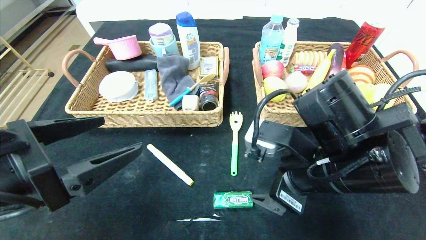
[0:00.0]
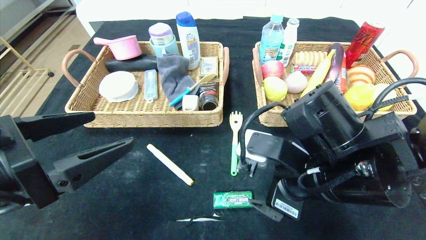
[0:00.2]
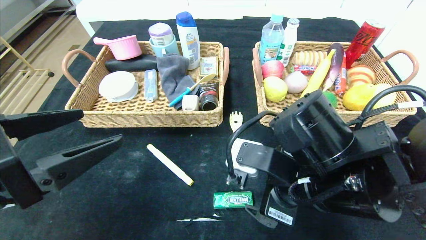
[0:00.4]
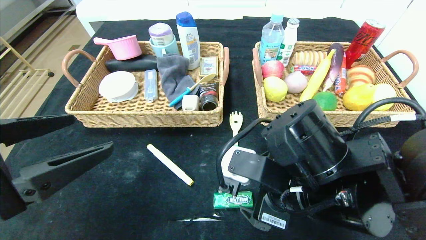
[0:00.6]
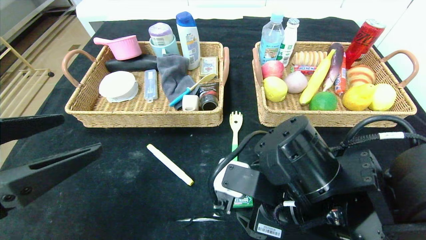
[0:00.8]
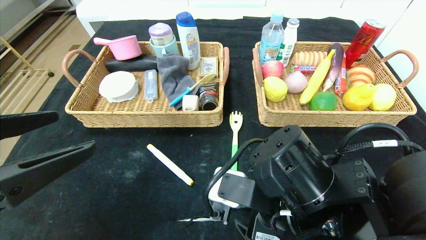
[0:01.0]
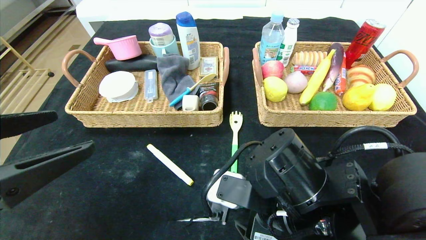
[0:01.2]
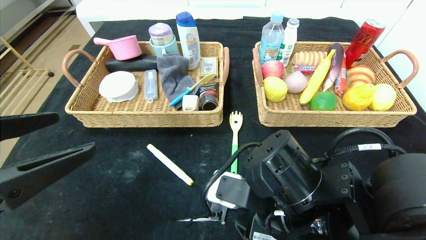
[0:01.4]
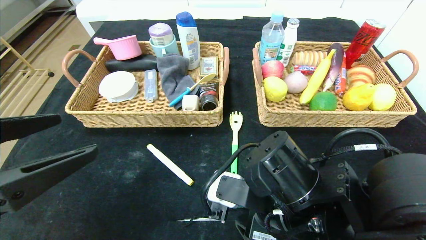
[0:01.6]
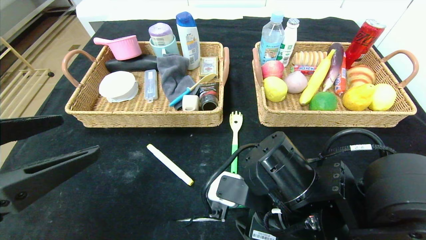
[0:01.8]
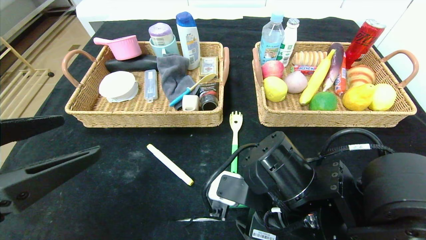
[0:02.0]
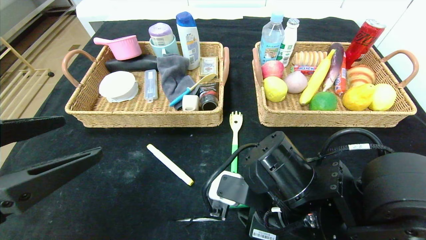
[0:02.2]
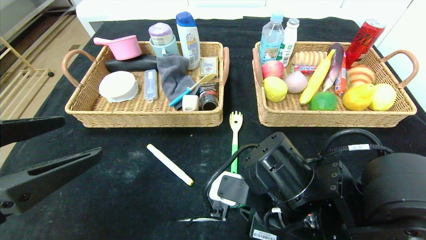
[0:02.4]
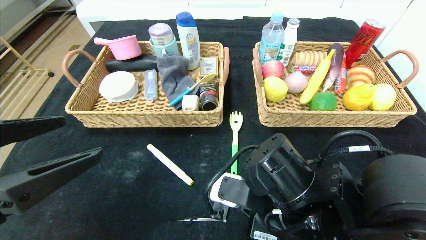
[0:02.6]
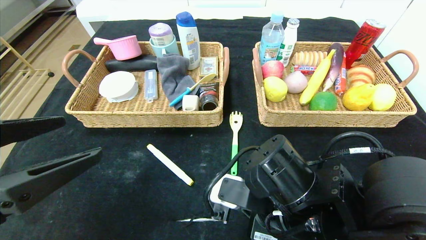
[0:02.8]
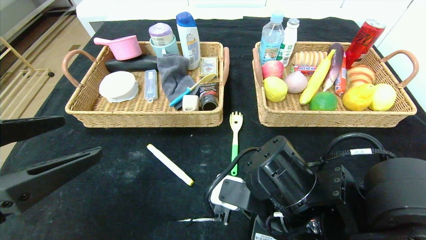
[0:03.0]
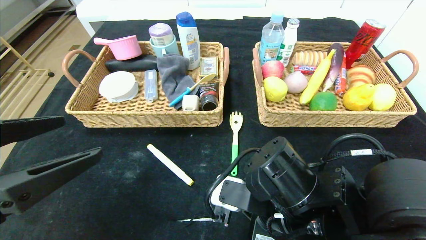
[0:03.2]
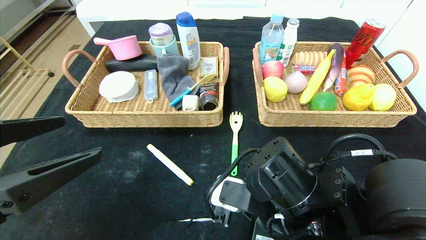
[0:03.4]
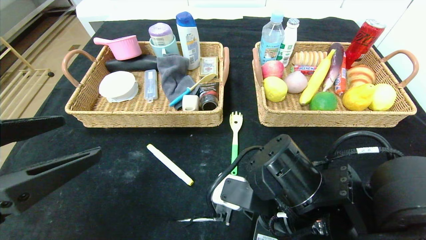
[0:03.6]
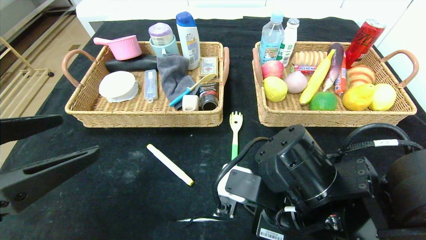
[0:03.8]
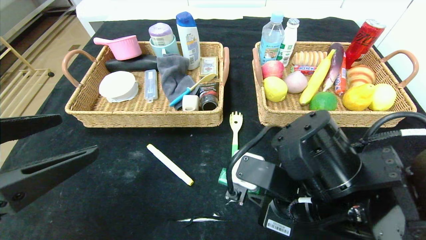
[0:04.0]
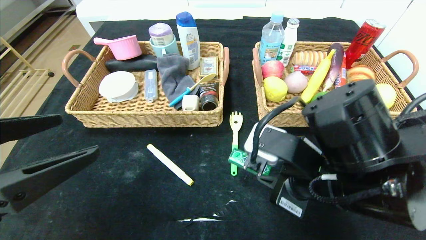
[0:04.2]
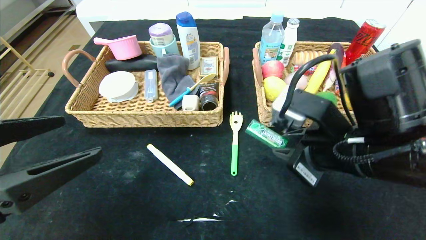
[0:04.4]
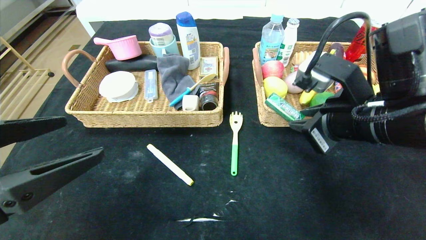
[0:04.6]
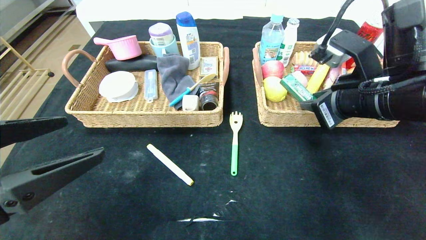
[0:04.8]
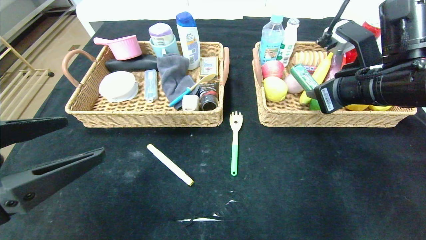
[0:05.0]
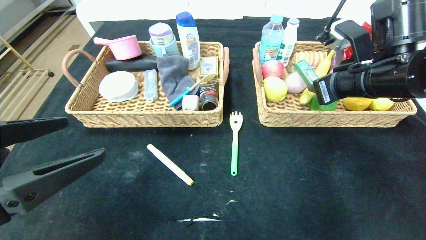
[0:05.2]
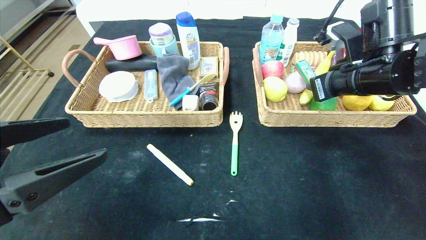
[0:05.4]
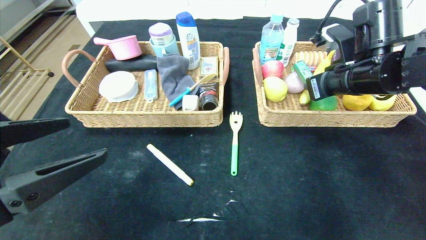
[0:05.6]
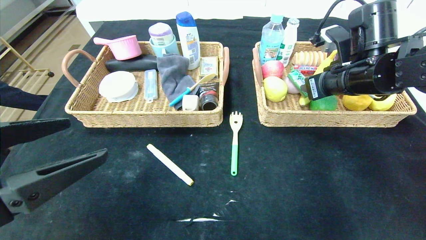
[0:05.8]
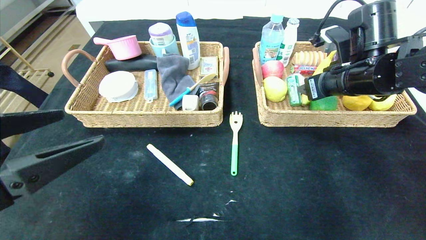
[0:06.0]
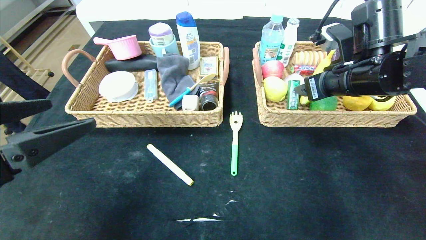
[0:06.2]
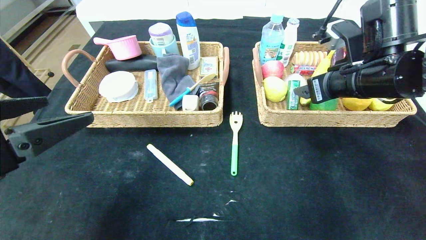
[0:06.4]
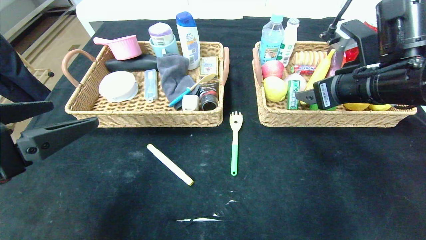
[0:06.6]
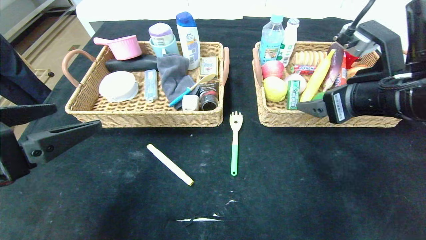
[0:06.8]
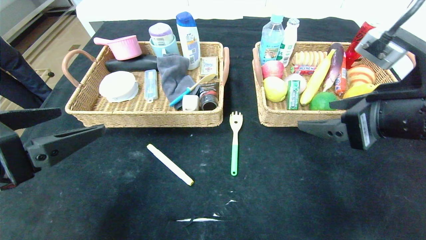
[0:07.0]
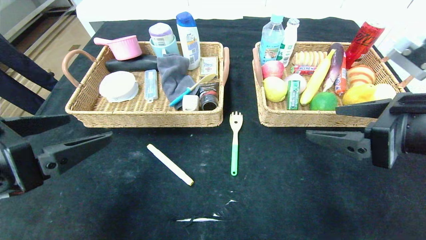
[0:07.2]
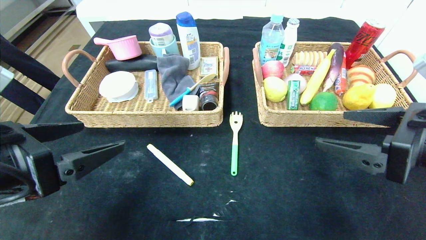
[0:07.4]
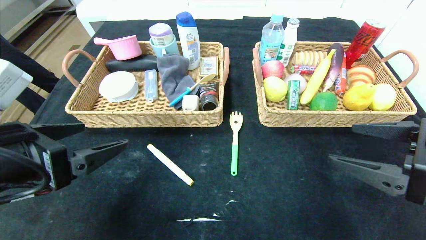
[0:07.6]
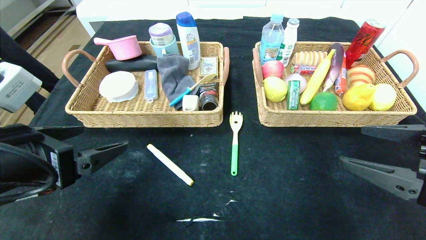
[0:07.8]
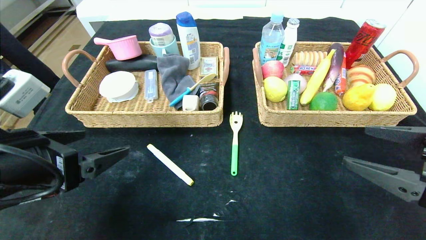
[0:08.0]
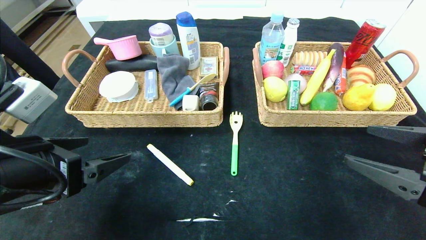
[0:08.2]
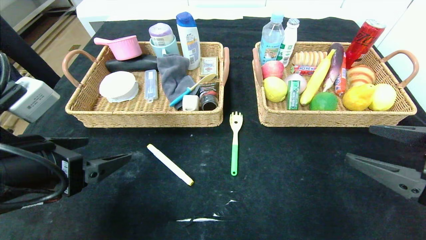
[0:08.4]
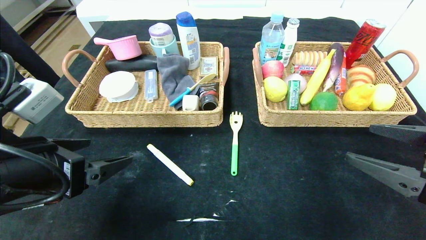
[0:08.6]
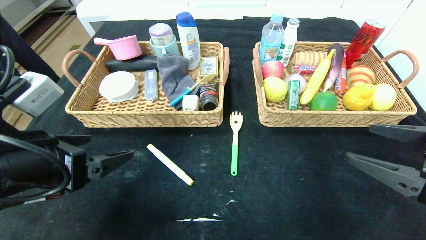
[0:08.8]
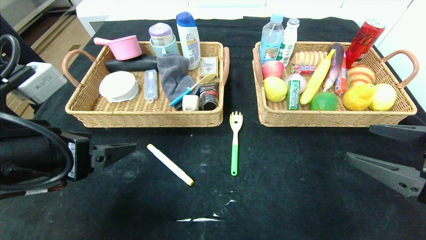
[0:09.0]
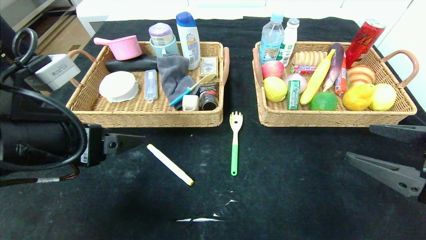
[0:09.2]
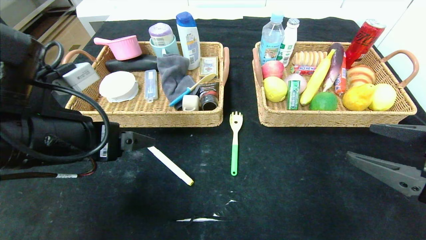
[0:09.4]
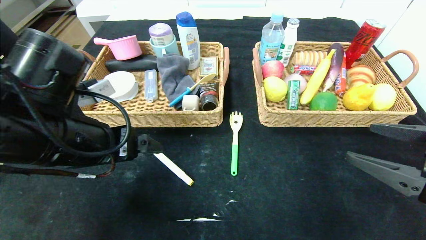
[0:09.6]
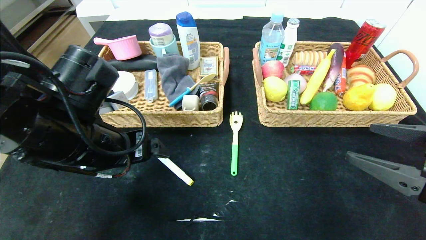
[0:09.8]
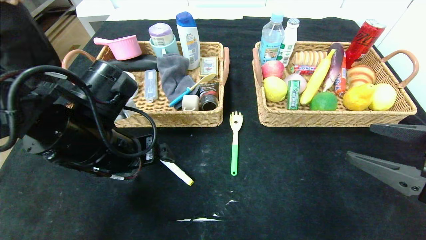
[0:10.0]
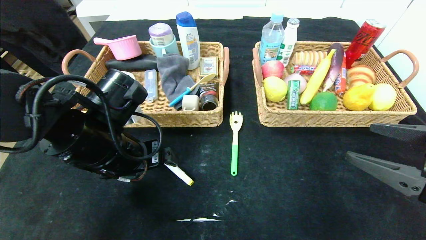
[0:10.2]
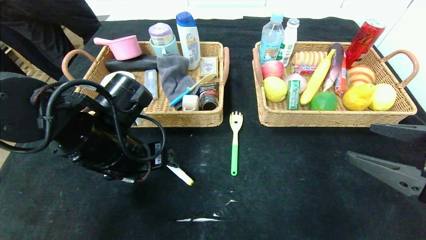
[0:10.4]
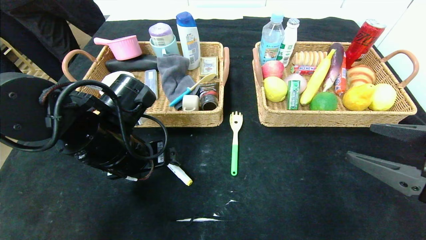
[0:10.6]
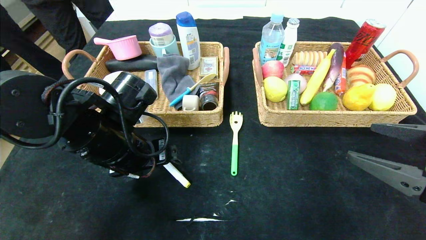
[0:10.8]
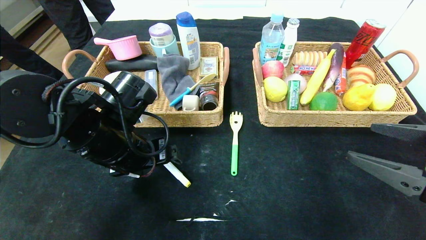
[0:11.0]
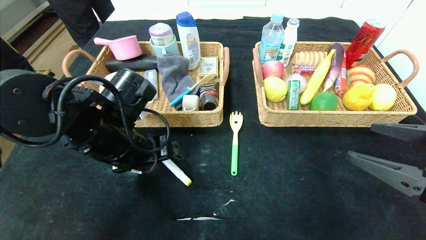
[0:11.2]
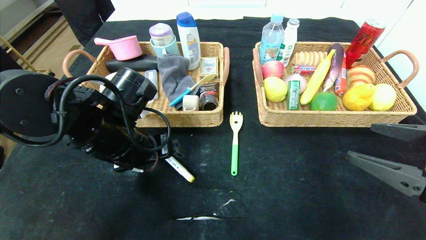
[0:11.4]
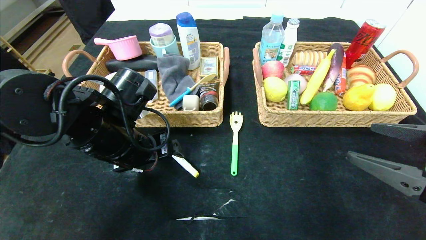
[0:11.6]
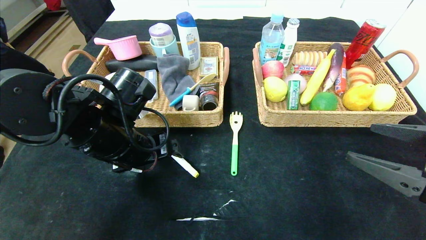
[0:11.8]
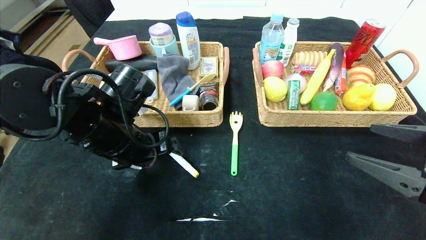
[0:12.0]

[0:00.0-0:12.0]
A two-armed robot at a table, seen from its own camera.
Step, 0:00.0 to 0:07.6: Pick up the green chewing gum and put it in the right basket.
0:00.0 to 0:01.6: The right gripper is displaced downward by roughly 5 cm.
0:01.6 to 0:03.0: The right gripper closes.
0:03.0 to 0:04.4: The right gripper shifts about 10 cm upward and to the right.
0:04.4 to 0:06.0: The right gripper moves forward and to the right, about 15 cm, and opens.
0:06.0 to 0:07.6: The right gripper shifts approximately 20 cm backward.
0:07.6 to 0:09.0: There are only small adjustments of the grippers.
0:09.0 to 0:10.4: The left gripper is displaced forward, to the right and downward by approximately 10 cm.
0:10.4 to 0:12.0: There are only small adjustments of the grippers.

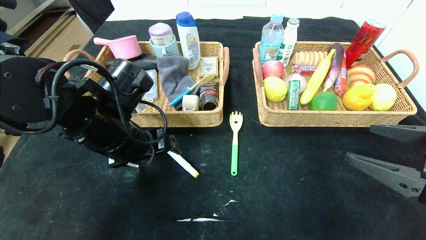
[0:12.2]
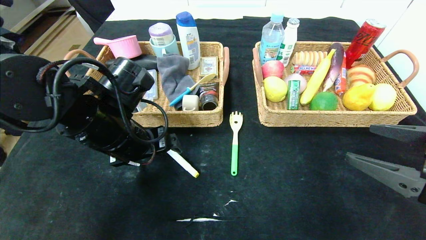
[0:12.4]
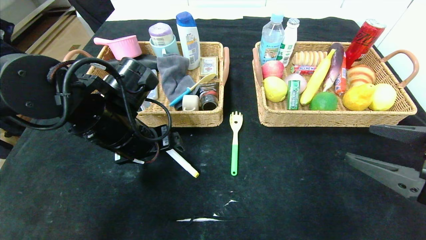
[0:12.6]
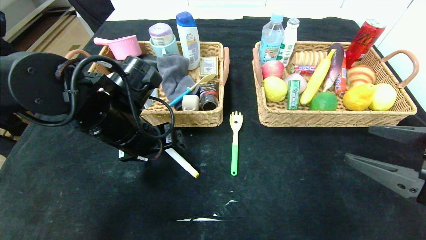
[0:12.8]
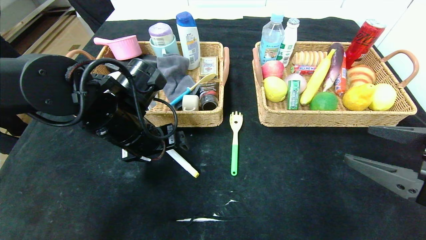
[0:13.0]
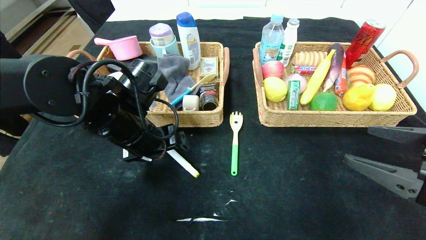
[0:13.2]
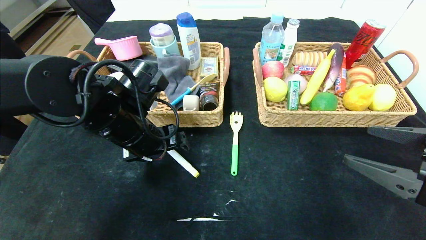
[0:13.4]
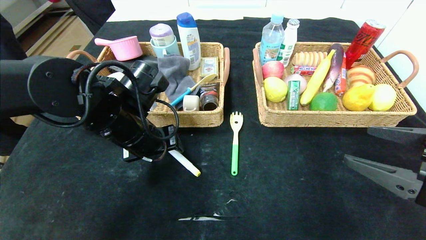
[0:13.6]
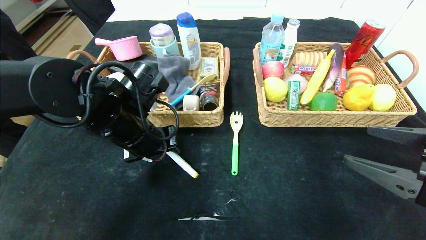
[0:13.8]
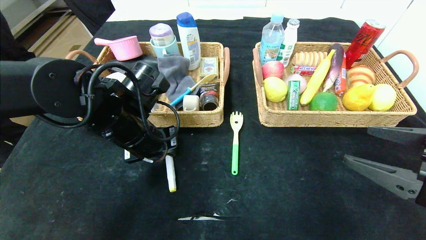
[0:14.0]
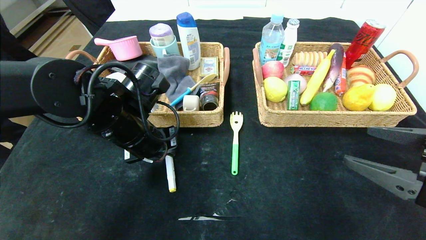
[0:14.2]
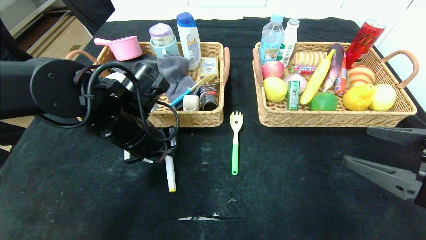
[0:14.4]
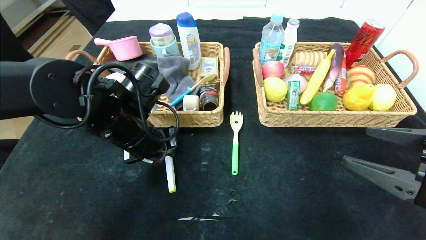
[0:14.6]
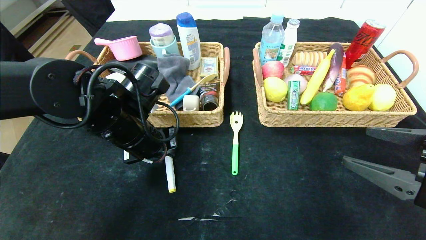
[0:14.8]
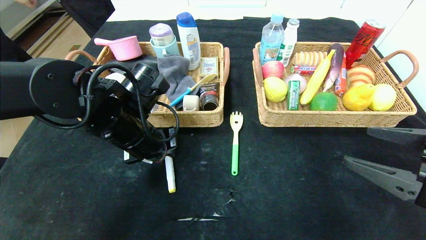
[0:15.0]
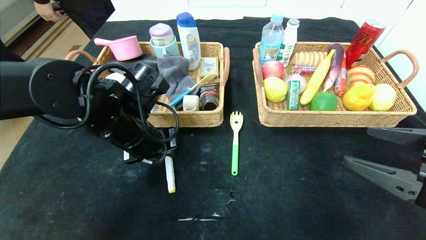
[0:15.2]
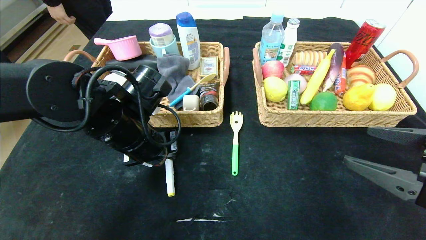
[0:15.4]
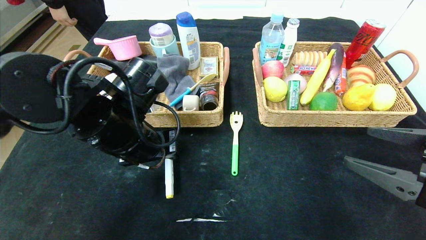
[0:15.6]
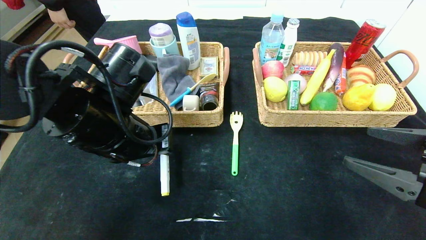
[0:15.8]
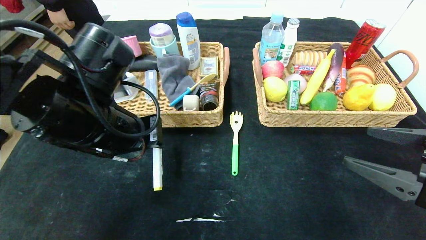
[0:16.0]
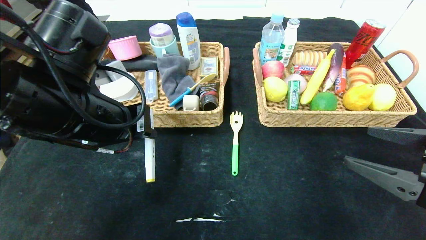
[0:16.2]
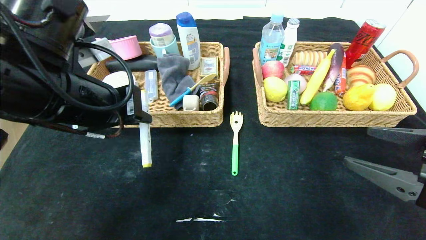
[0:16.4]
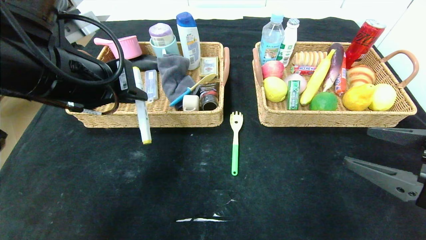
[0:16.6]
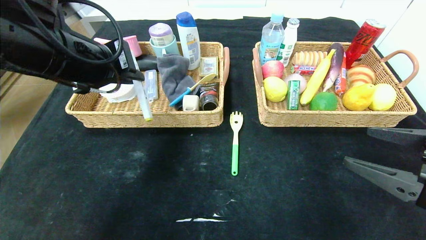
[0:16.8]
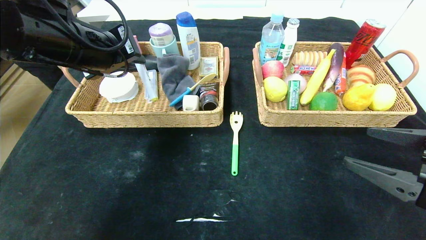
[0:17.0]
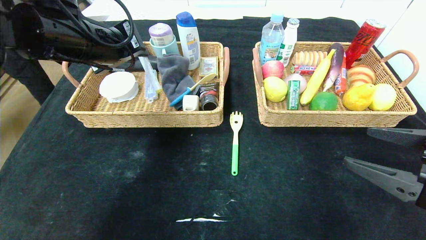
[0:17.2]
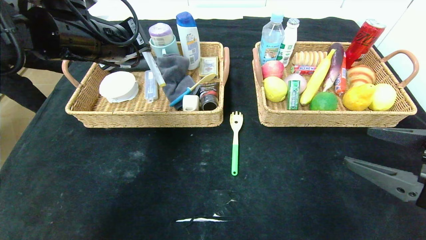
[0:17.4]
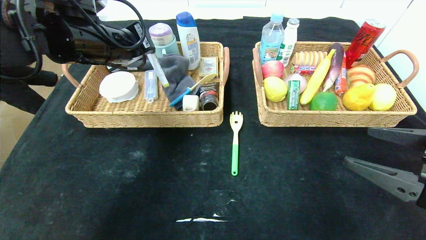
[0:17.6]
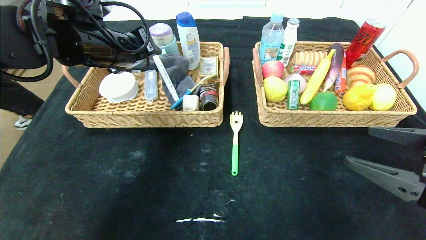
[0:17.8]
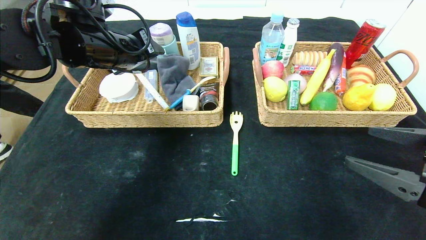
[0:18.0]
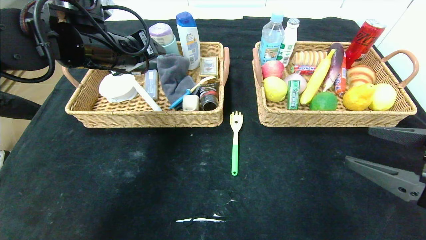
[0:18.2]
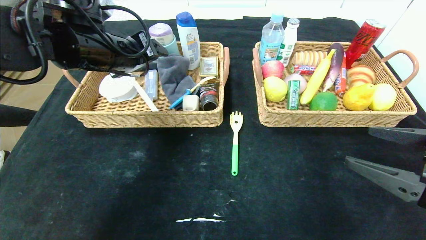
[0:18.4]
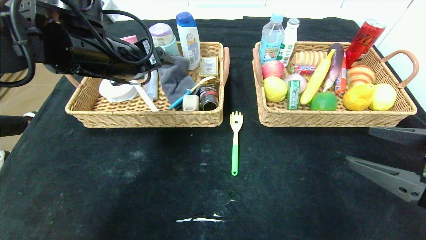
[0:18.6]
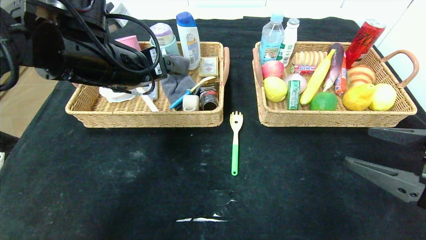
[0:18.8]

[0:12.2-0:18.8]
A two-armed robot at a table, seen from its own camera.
0:12.2 to 0:13.8: The left gripper closes its fingers.
0:13.8 to 0:15.4: The left gripper closes its fingers.
0:15.4 to 0:17.2: The left gripper goes roughly 15 cm upward and to the left.
0:17.2 to 0:18.8: The left gripper moves some 5 cm, and opens.
